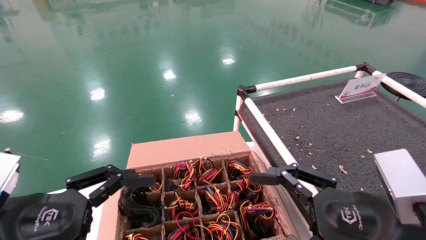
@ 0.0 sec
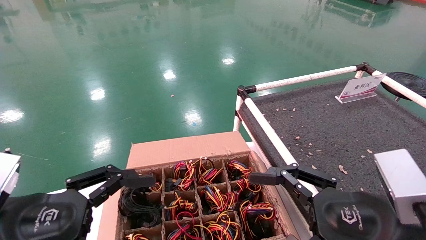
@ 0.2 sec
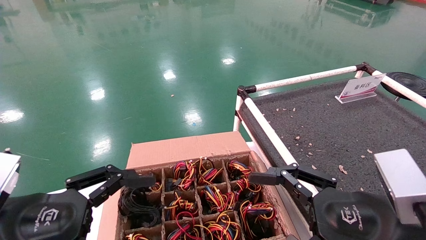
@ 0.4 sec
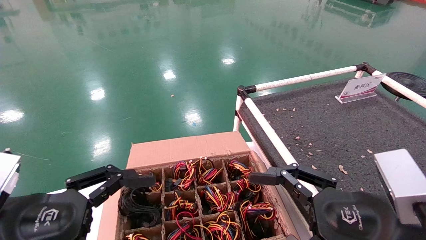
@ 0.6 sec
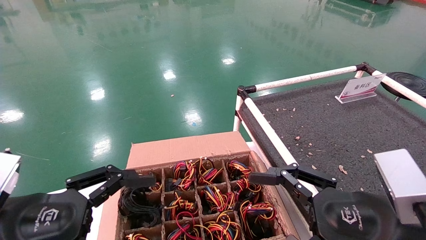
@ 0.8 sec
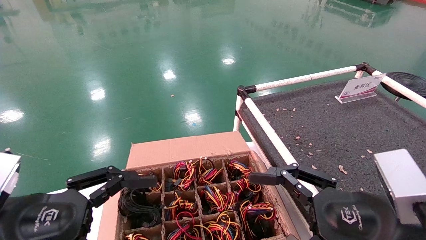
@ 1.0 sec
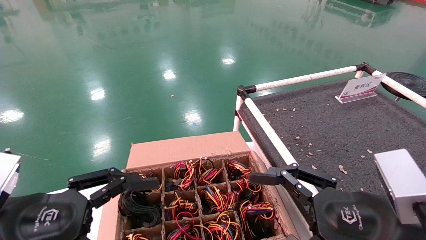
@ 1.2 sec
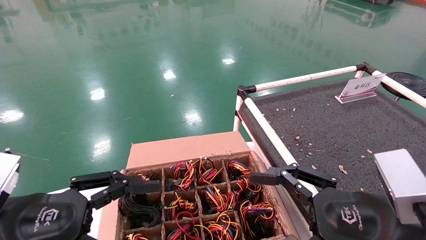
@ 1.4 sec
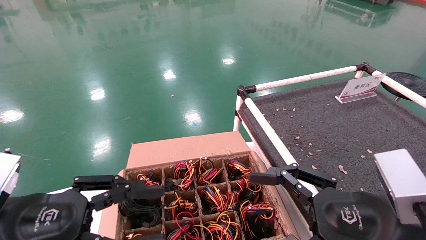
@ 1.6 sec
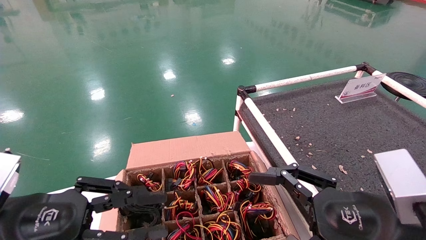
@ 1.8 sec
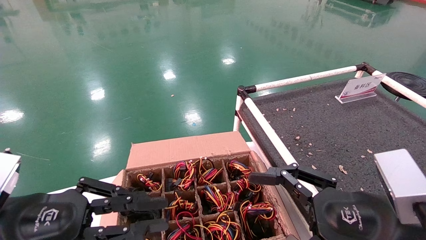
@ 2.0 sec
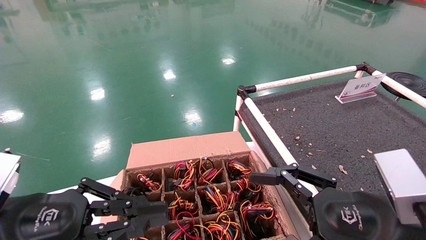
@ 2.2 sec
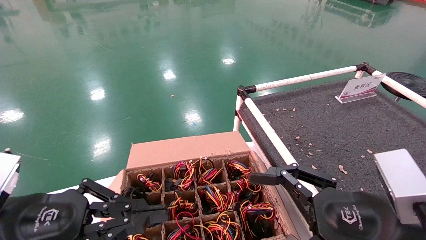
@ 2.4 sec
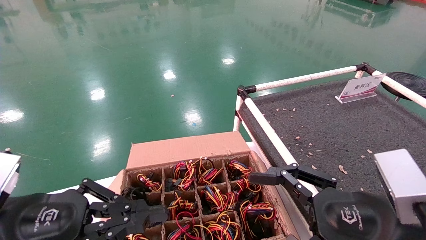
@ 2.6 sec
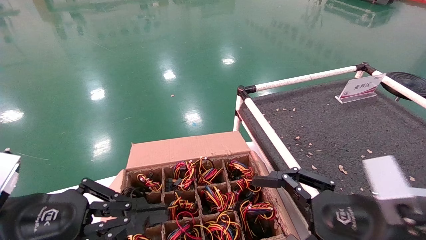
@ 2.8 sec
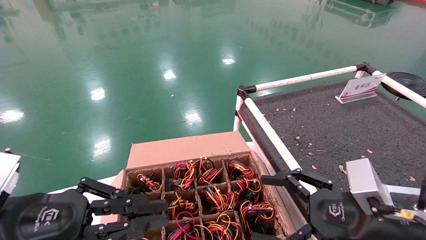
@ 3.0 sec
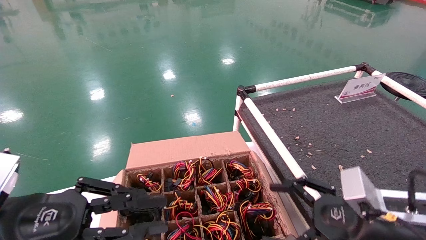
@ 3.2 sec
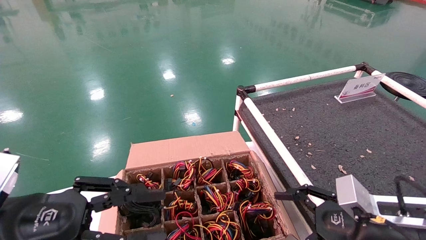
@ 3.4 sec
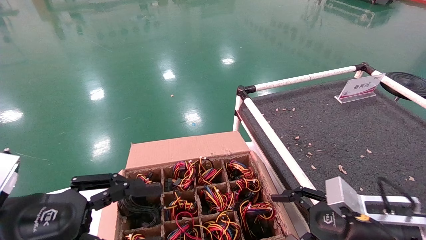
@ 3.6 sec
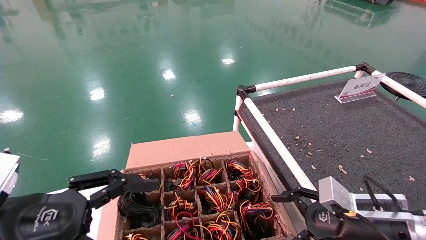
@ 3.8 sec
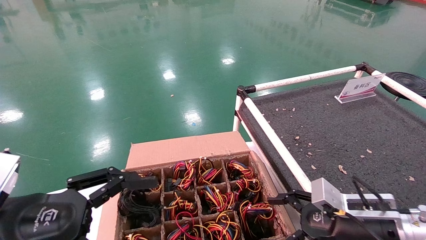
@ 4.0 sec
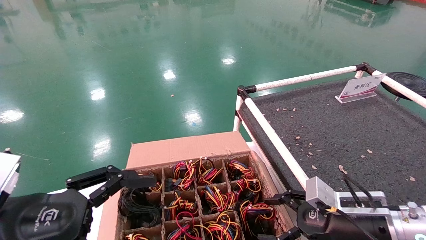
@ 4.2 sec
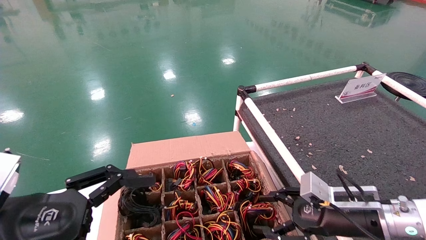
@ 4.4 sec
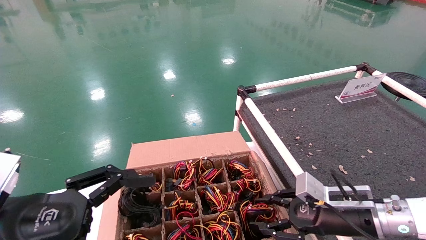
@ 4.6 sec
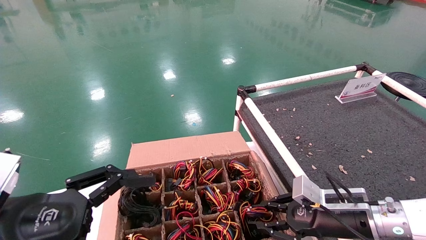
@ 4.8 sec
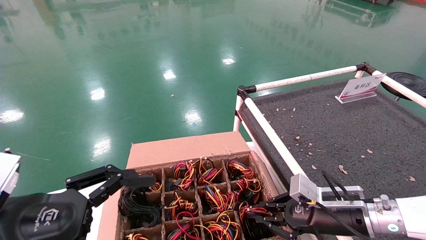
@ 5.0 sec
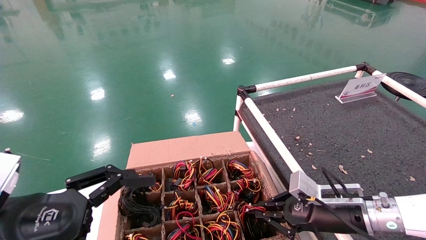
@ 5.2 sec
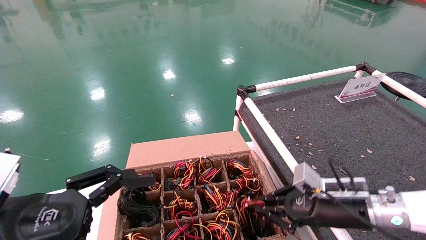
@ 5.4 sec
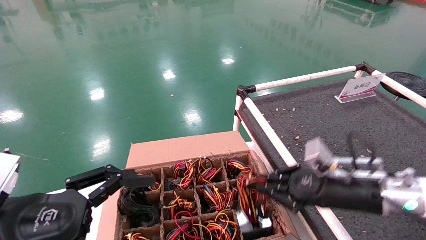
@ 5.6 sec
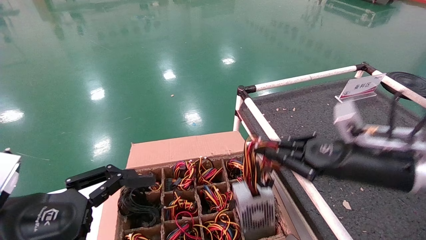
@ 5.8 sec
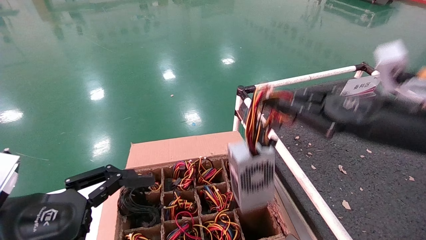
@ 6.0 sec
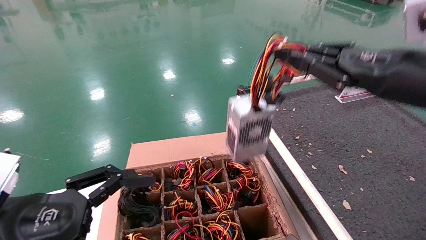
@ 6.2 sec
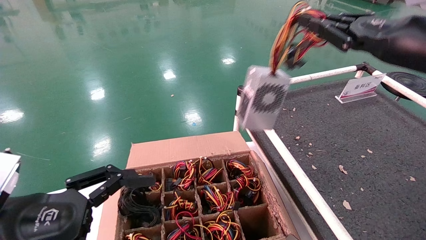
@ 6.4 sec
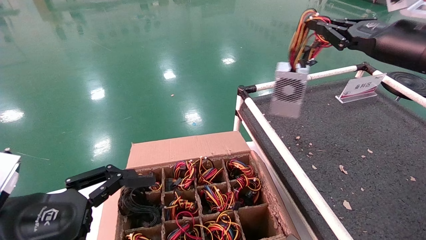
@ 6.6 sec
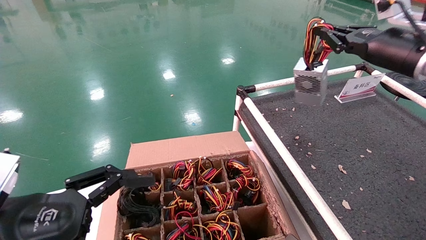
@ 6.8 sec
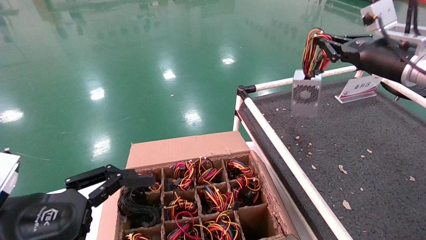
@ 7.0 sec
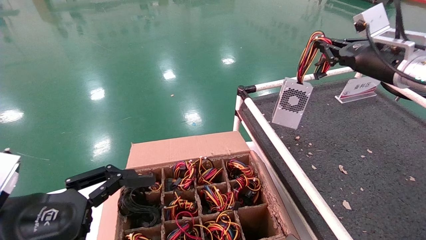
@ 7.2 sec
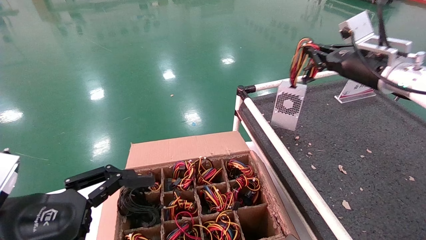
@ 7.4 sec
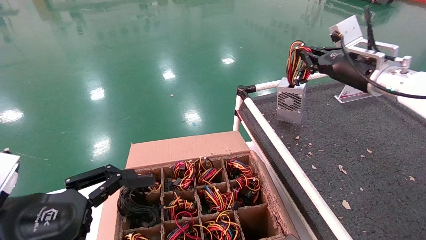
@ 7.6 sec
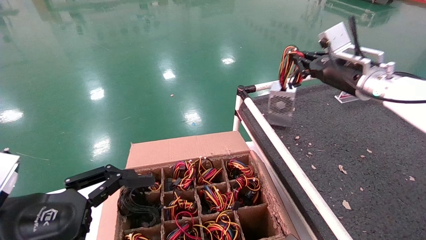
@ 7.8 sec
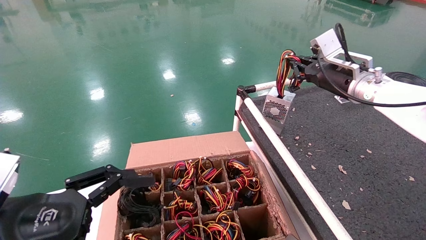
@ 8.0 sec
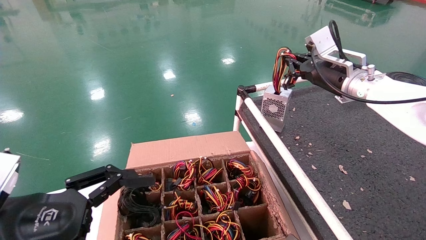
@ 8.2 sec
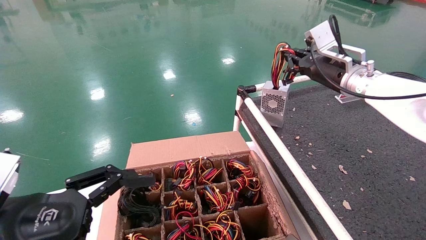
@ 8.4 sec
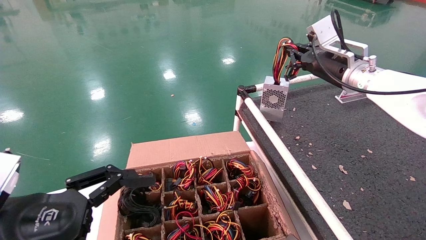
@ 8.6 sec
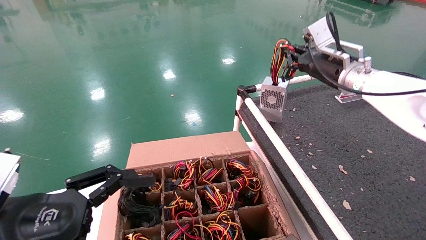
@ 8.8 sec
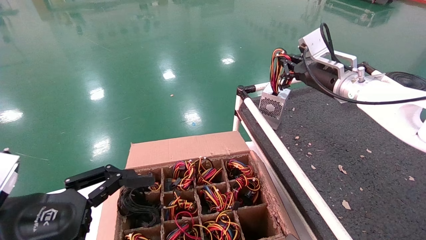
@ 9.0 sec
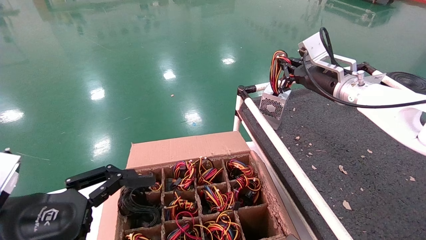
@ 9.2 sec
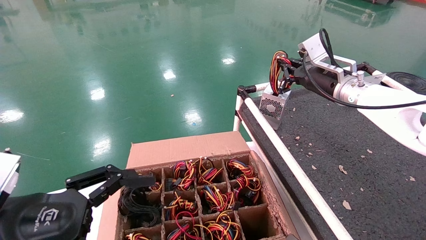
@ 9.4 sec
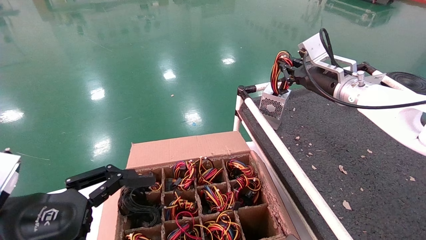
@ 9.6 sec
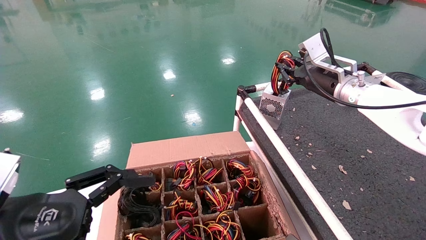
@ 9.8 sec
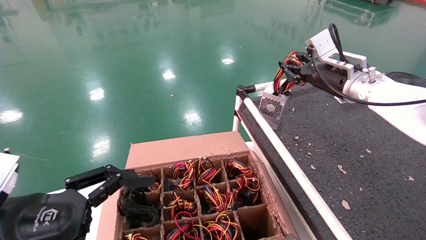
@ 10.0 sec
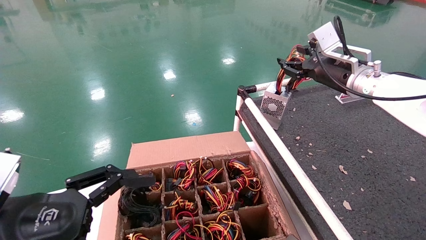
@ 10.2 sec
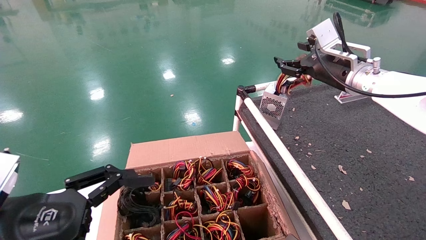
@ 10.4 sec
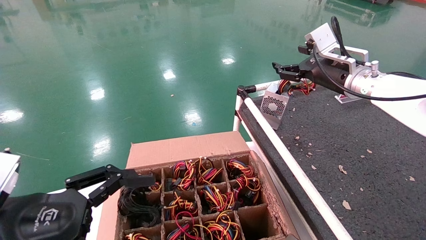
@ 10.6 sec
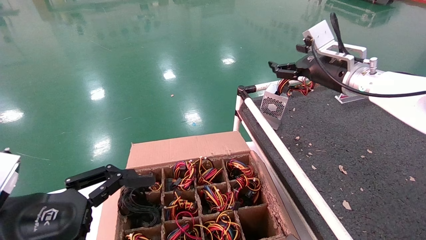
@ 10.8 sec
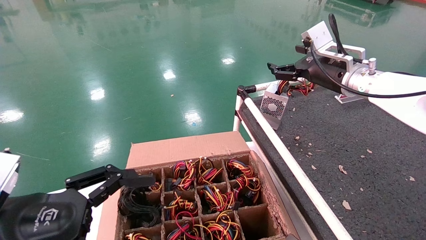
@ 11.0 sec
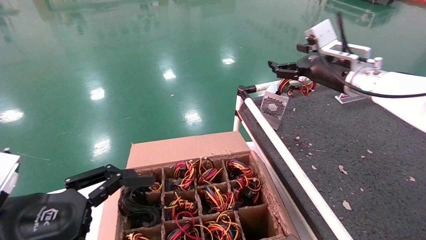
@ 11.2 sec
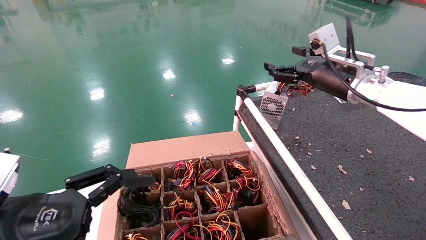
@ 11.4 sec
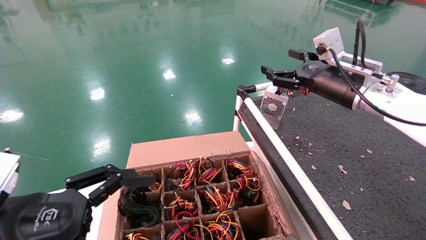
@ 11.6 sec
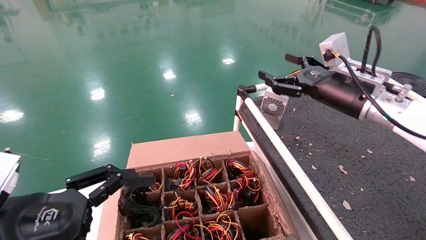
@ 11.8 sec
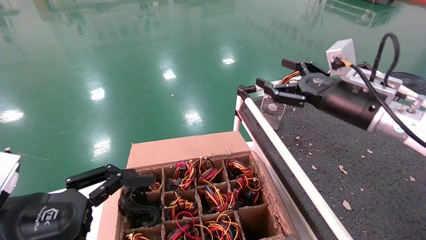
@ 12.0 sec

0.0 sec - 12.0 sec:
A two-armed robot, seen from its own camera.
Step, 3.2 sec - 5.0 sec: Grab and lift the power supply from the large box.
Step, 5.2 sec - 10.0 sec: Place the power supply on the operating table.
0.0 sec - 1.6 sec: The left gripper closes.
1.6 sec - 3.0 sec: The right gripper ends up about 5 cm from where it was. Meanwhile the left gripper closes its fingers.
3.0 sec - 4.4 sec: The left gripper opens, while the right gripper heads forward and downward, covering about 10 cm.
4.4 sec - 6.0 sec: The right gripper shifts approximately 20 cm upward, and closes up.
6.0 sec - 7.6 sec: The right gripper travels forward and upward by roughly 15 cm.
7.6 sec - 9.0 sec: The right gripper changes place by about 5 cm.
9.0 sec - 10.4 sec: The right gripper opens its fingers.
10.4 sec - 12.0 sec: The right gripper travels backward and downward by roughly 10 cm, and opens.

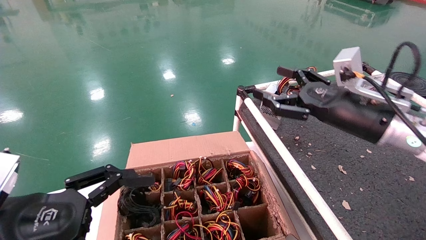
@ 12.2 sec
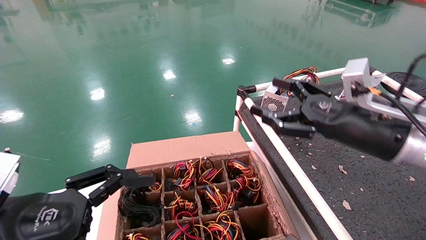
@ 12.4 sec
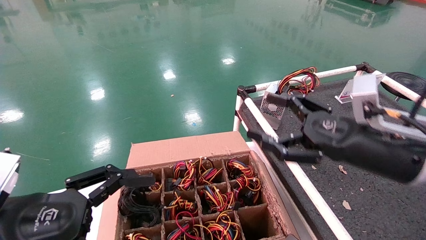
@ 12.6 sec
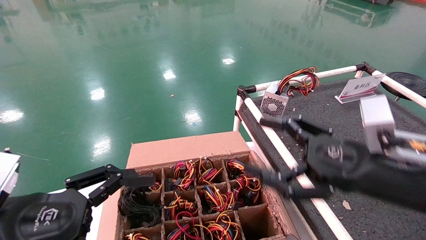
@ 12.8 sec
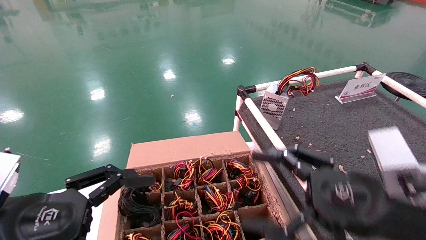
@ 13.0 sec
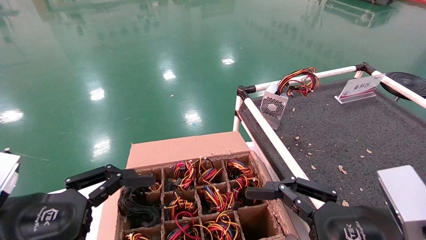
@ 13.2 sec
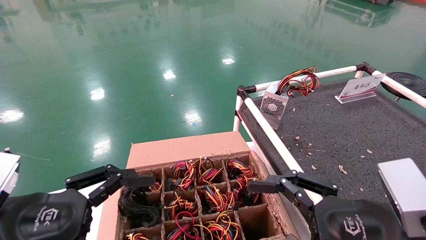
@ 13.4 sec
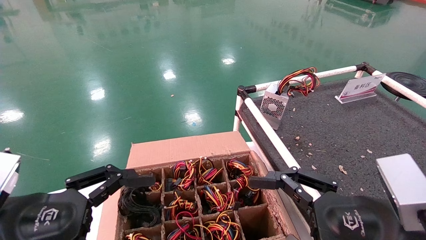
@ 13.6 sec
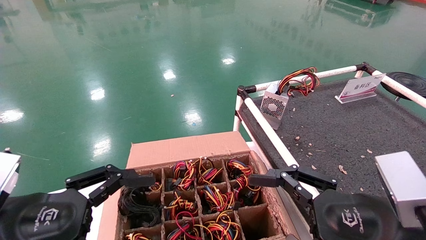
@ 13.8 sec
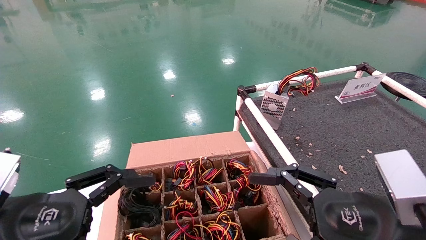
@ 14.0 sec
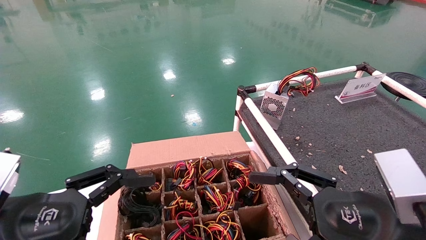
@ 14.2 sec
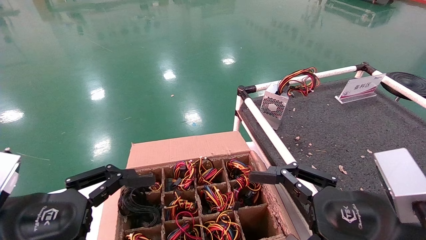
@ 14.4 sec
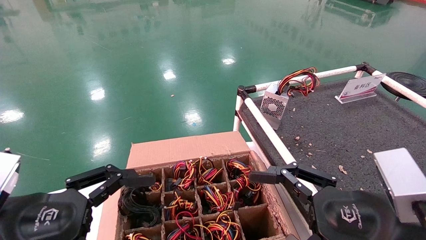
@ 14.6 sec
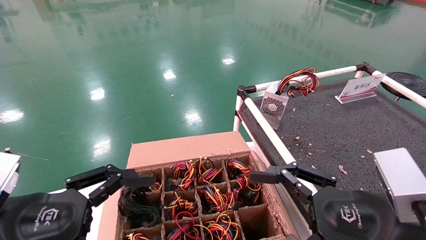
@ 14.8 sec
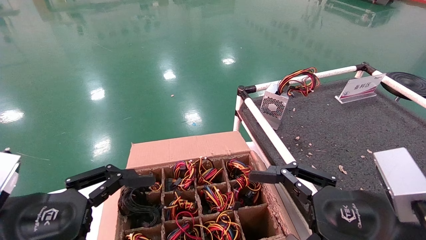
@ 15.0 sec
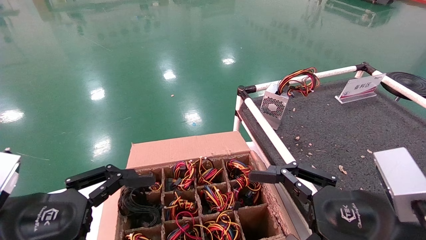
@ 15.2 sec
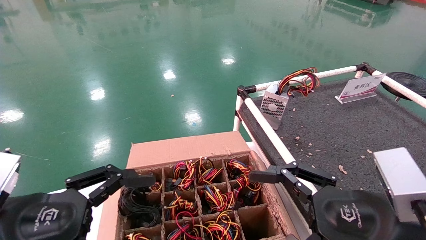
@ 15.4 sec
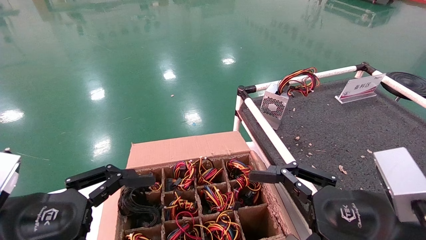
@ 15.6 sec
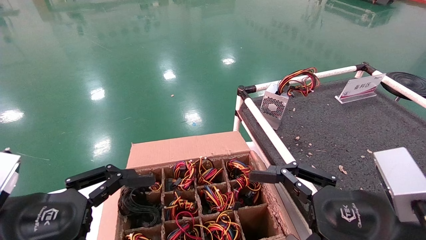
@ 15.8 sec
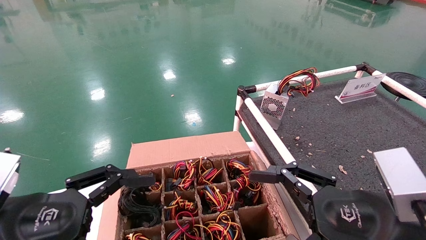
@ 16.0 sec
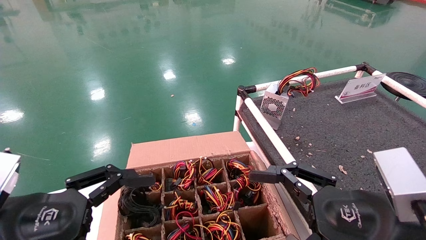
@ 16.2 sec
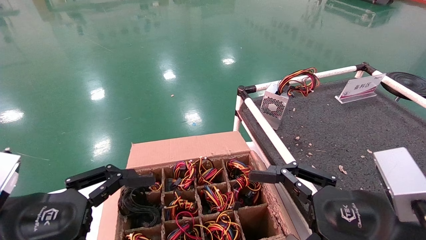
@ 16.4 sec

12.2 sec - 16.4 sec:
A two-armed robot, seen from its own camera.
12.2 sec - 13.6 sec: The right gripper is displaced backward and downward by some 20 cm.
13.6 sec - 16.4 sec: The two grippers keep their place.
